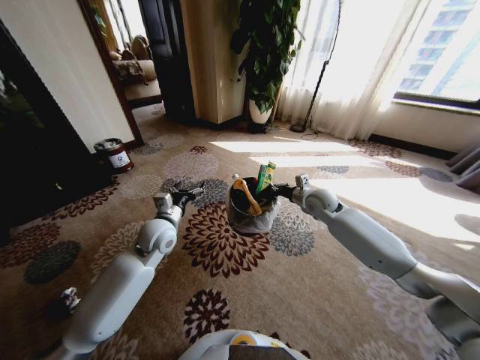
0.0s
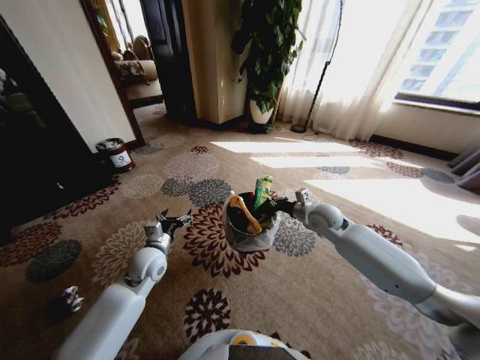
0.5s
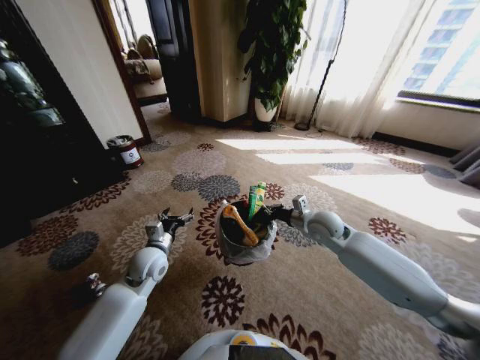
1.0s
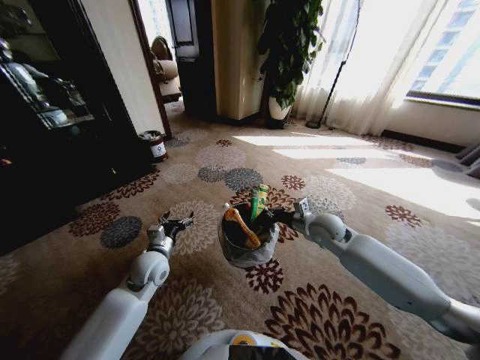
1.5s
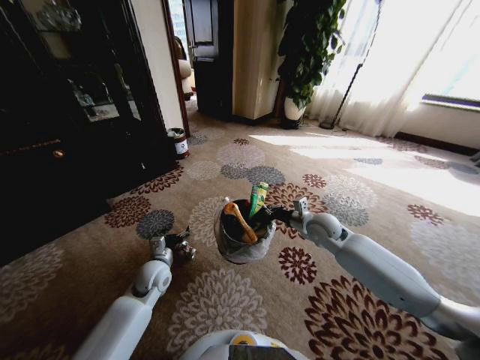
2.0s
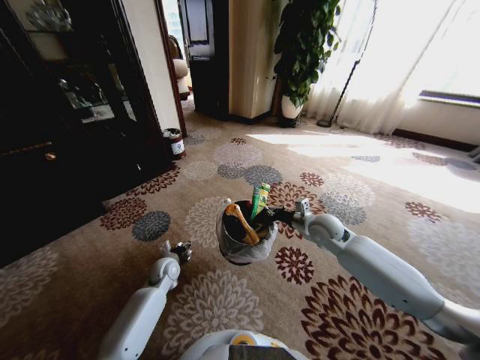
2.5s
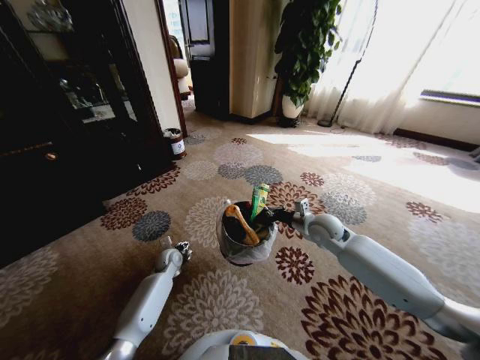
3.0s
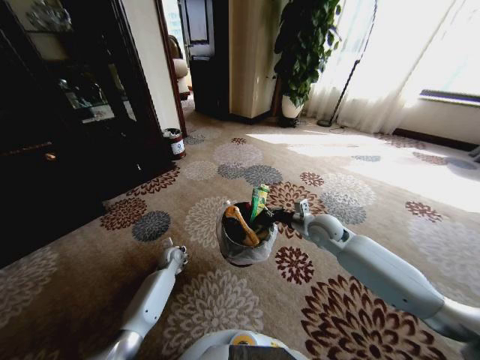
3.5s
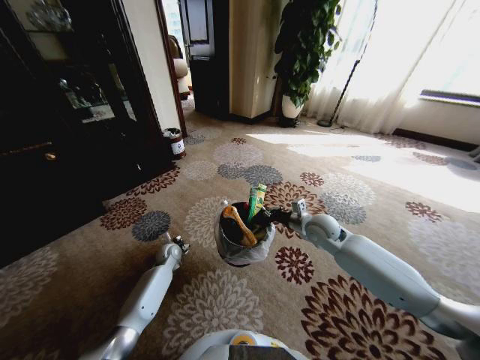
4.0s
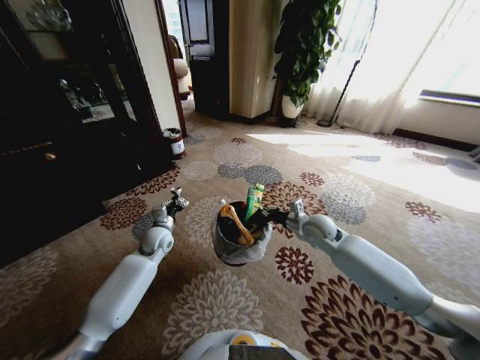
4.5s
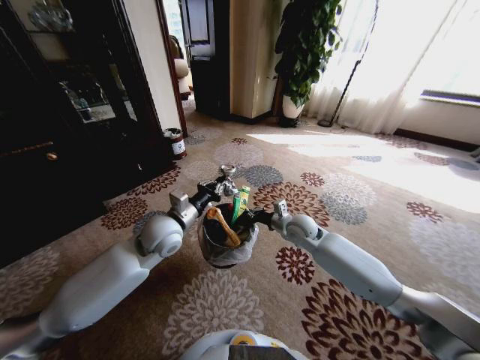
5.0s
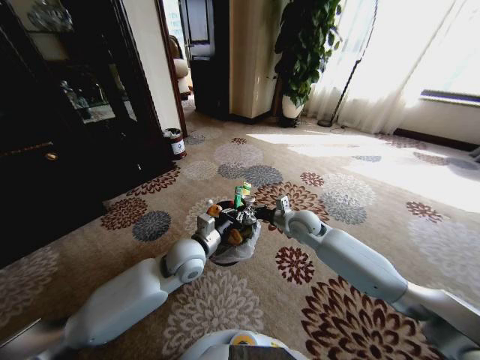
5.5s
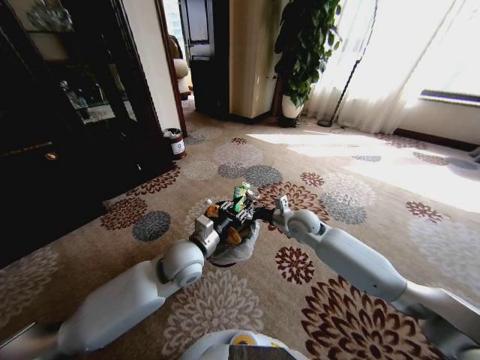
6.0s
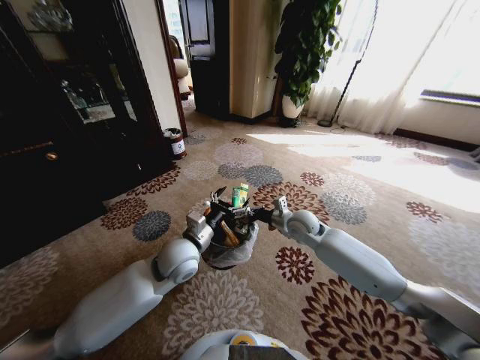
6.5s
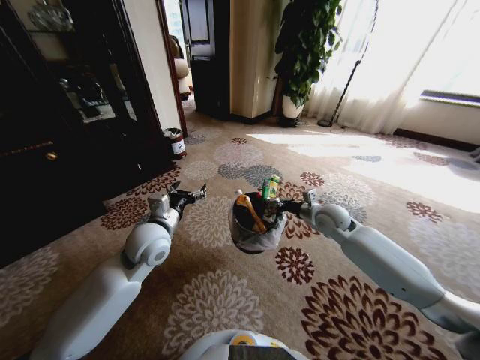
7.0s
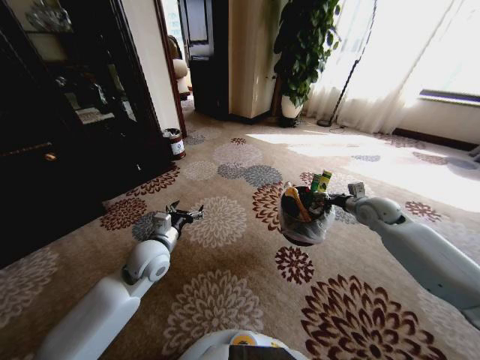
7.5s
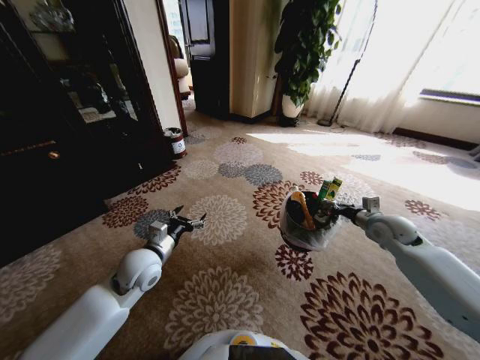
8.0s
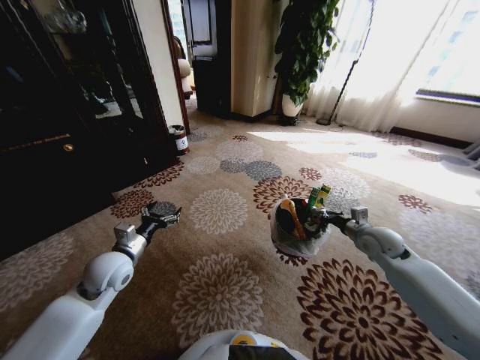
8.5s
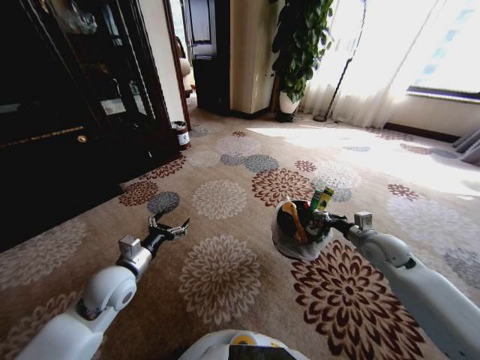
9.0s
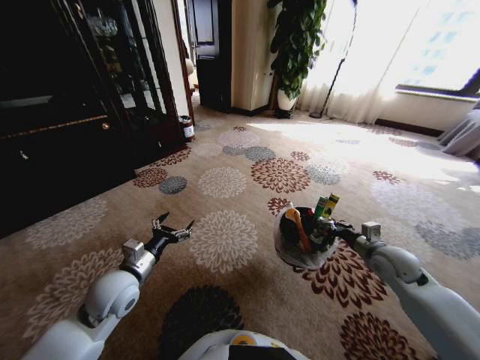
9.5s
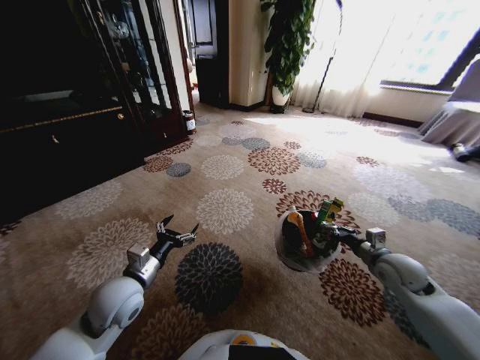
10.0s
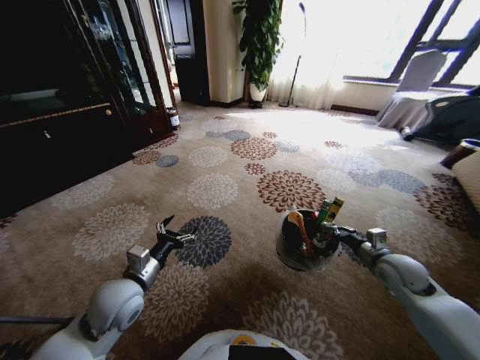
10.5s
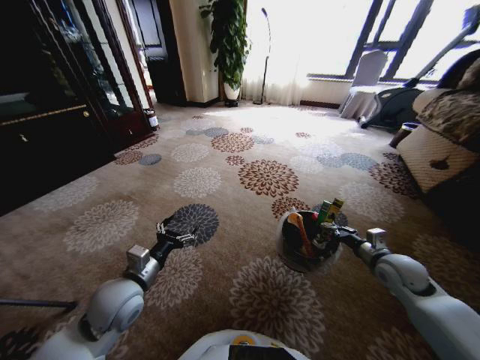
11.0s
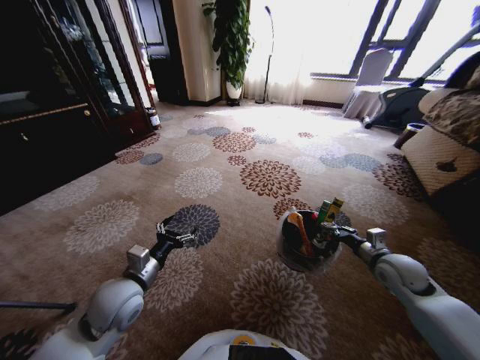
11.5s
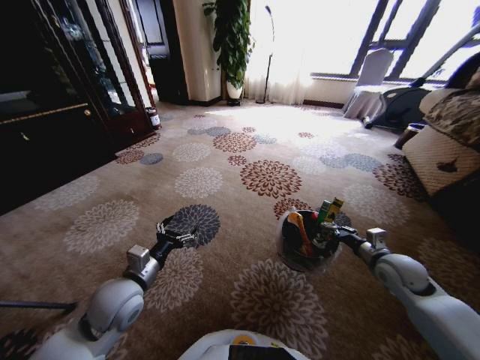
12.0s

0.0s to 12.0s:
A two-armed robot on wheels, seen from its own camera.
Task of the whole recording: Pick up the trash from the ground and place it into the trash bin.
0.0s to 2.0s: The left gripper travels downward and backward by approximately 15 cm; the right gripper is displaced backward by some 10 cm.
2.0s to 4.0s: The left gripper is displaced forward and downward by roughly 15 cm, and closes up.
4.0s to 6.0s: The left gripper shifts roughly 30 cm upward, to the right and backward, while the right gripper moves to the left, approximately 5 cm.
6.0s to 8.0s: The left gripper is displaced to the left by approximately 10 cm, and opens; the right gripper moves to the right, approximately 25 cm.
8.0s to 10.0s: The right gripper is displaced backward by some 10 cm. The left gripper shifts approximately 5 cm backward.

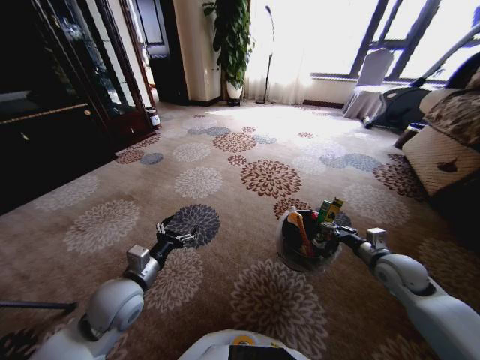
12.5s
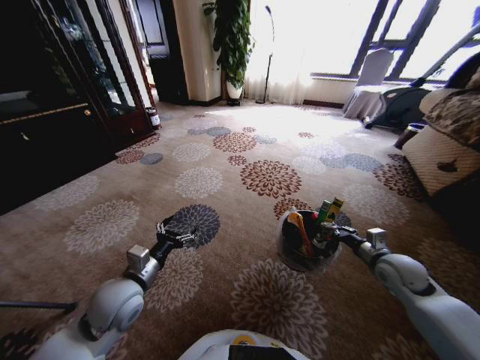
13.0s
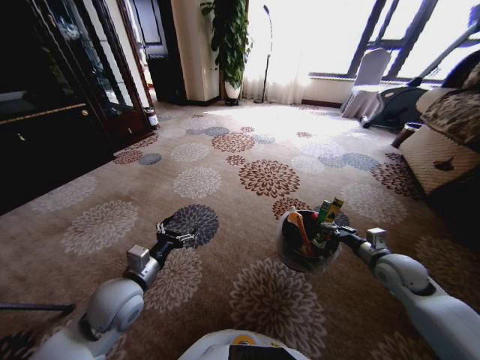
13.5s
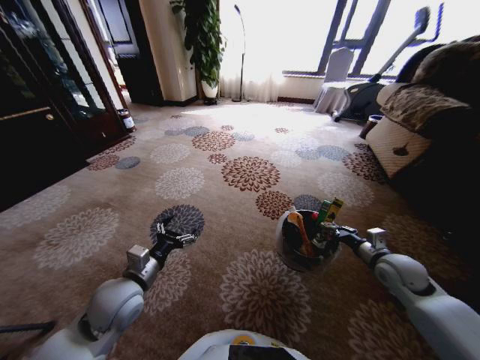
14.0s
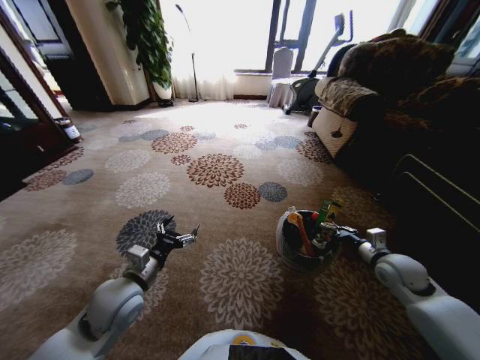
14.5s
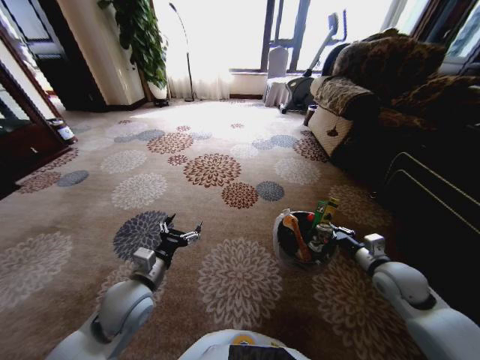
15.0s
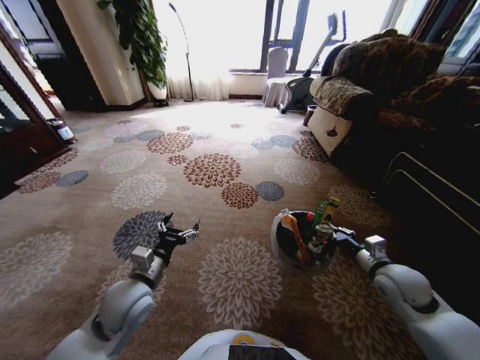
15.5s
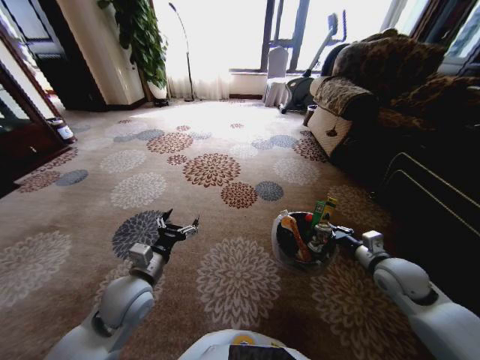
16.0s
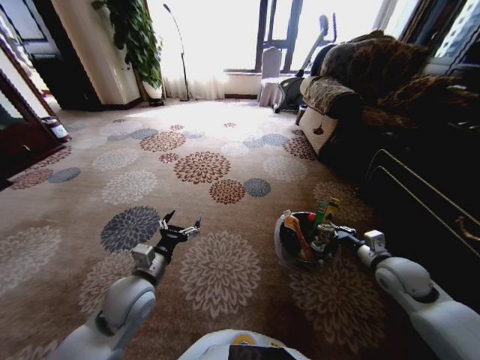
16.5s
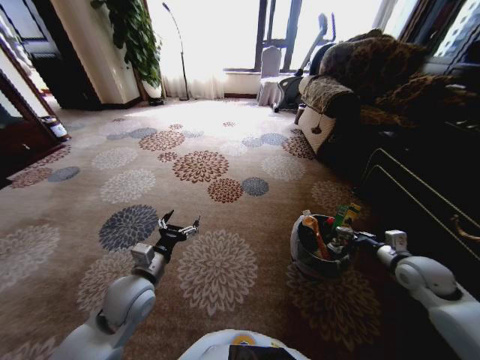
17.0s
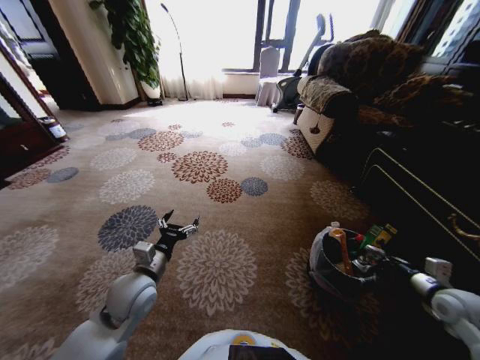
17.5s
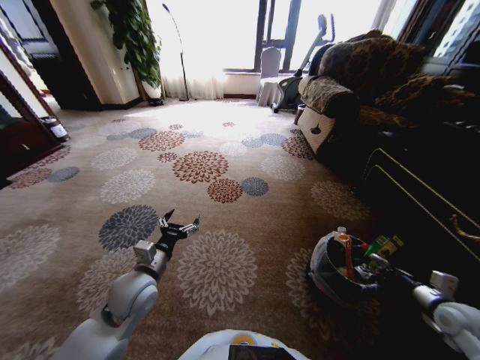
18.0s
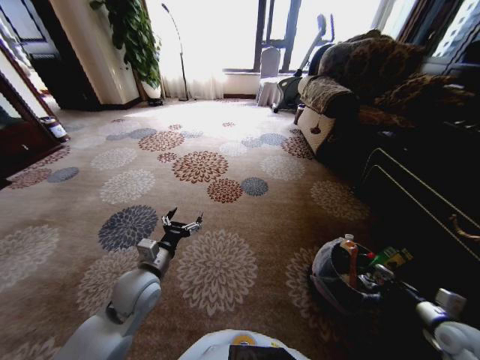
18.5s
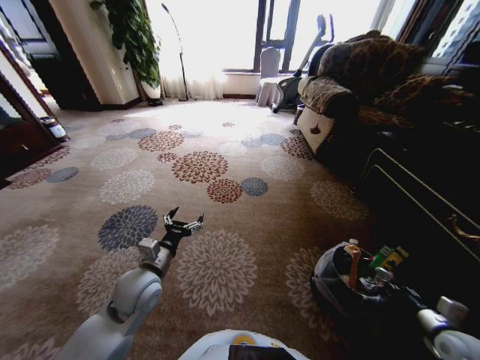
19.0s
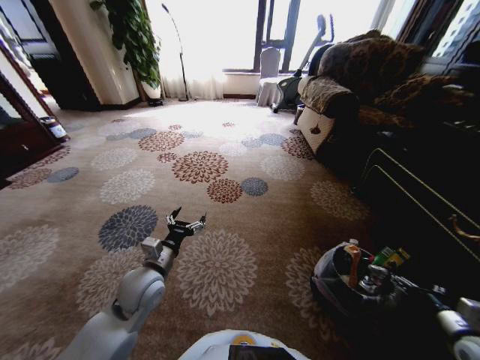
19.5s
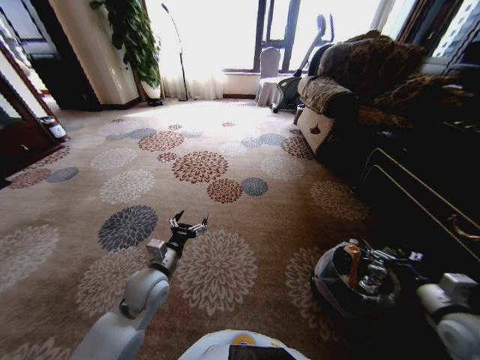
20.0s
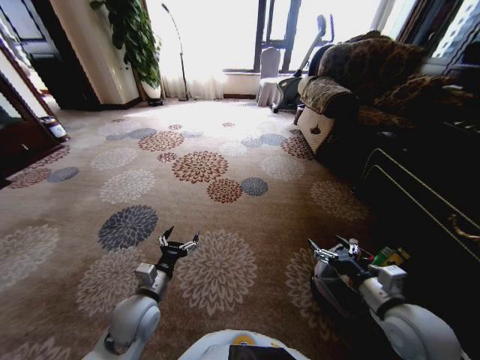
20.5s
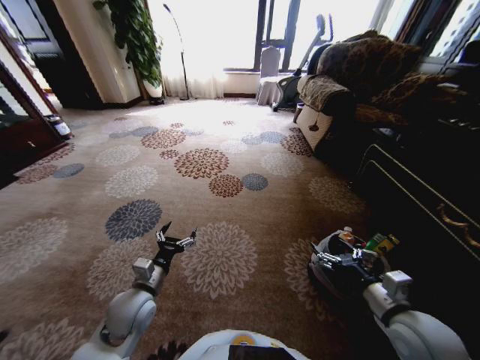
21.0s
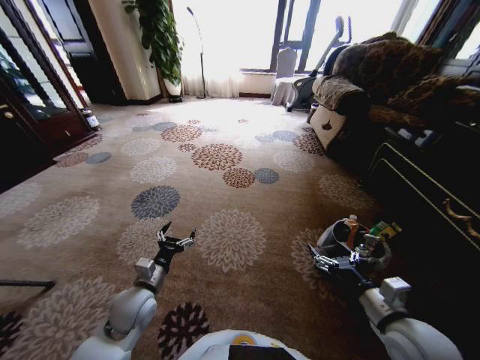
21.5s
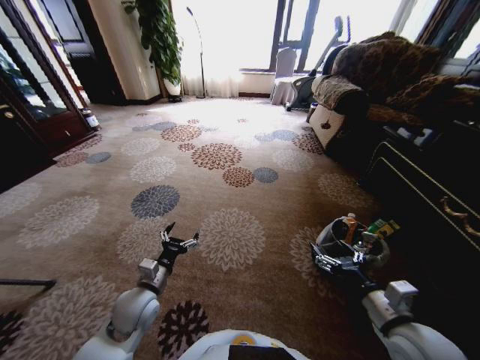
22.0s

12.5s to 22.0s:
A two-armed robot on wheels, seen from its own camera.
Task of the whole recording: Pick up the trash from the ground and place it into the trash bin.
16.5s to 18.0s: The right gripper travels to the right, backward and downward by some 15 cm.
18.0s to 20.0s: The right gripper goes some 10 cm to the left and upward, and opens.
20.0s to 22.0s: The left gripper ends up some 5 cm from where it was. Meanwhile the right gripper shifts some 15 cm to the left.
